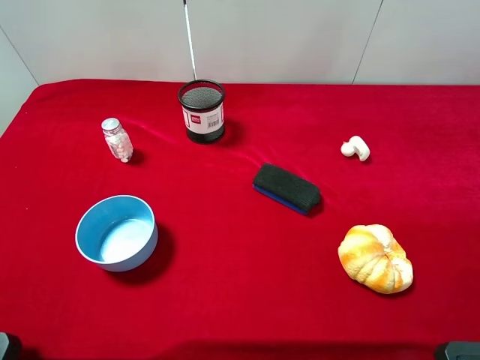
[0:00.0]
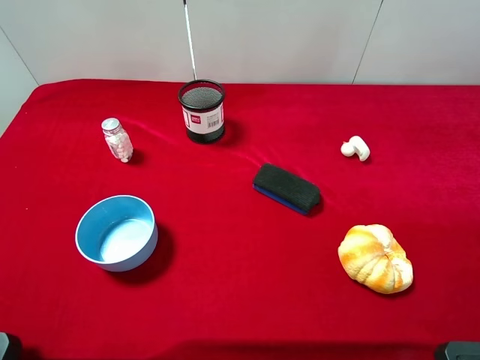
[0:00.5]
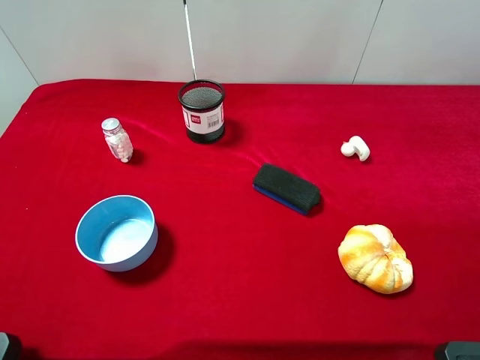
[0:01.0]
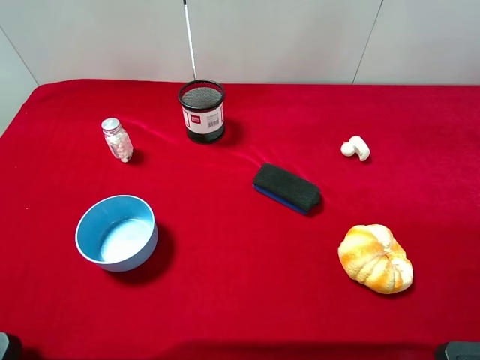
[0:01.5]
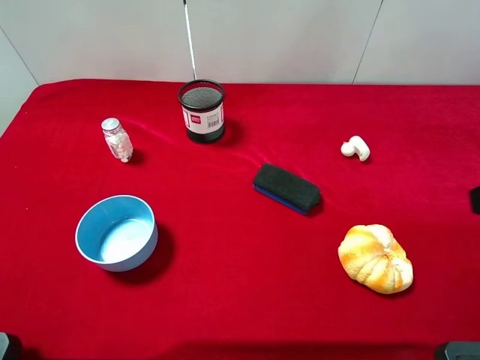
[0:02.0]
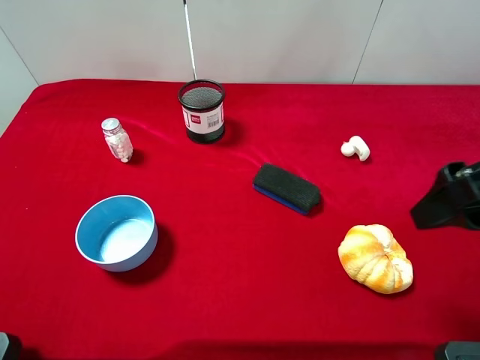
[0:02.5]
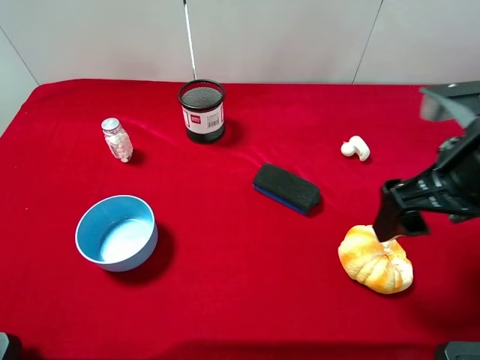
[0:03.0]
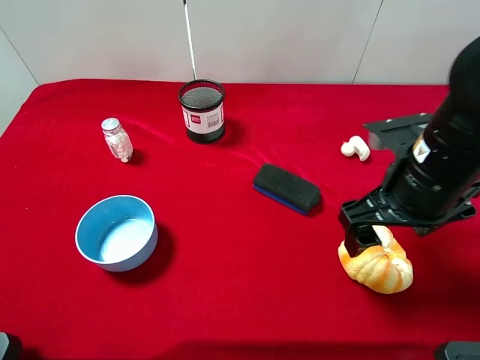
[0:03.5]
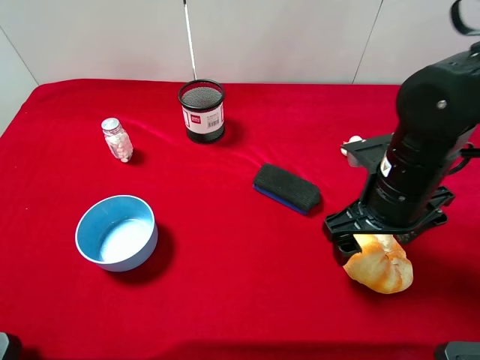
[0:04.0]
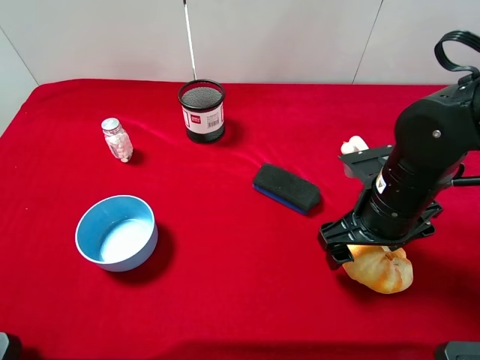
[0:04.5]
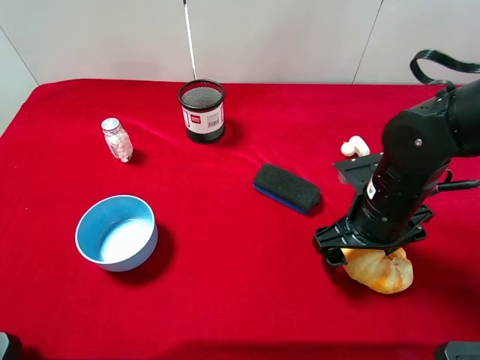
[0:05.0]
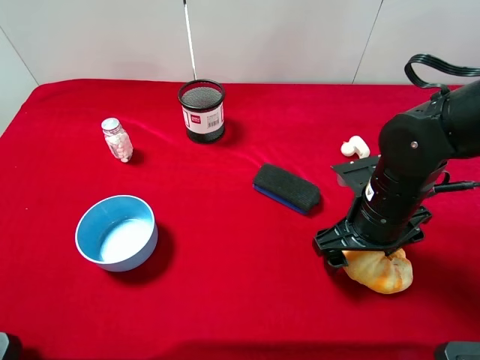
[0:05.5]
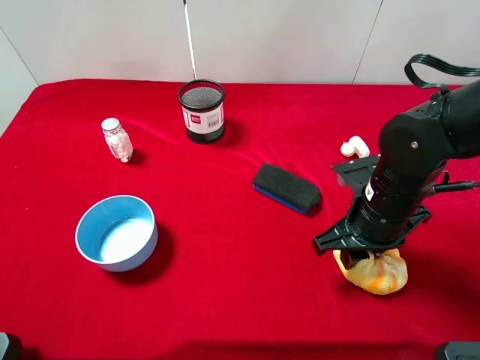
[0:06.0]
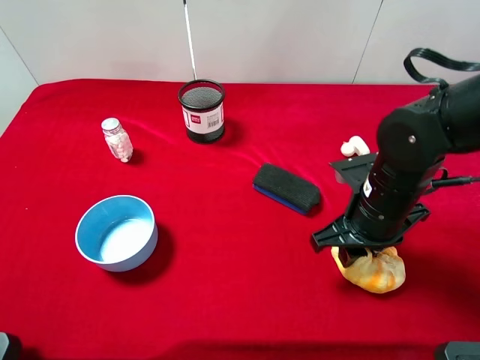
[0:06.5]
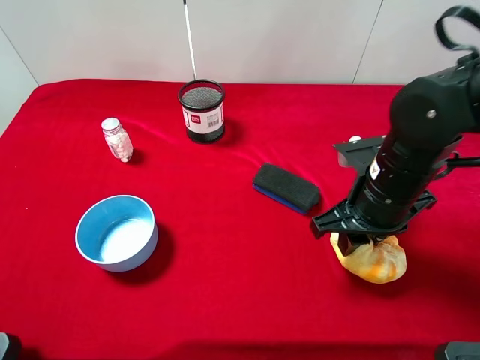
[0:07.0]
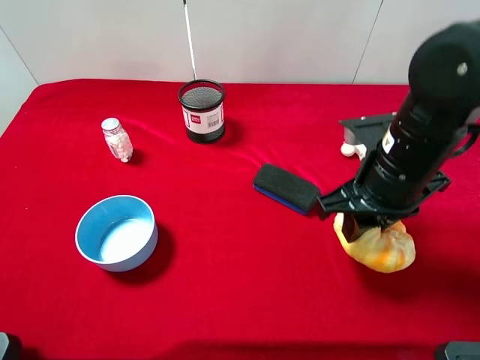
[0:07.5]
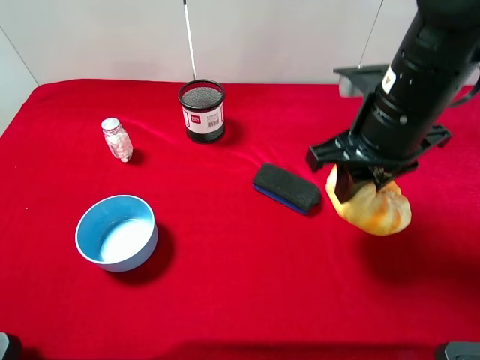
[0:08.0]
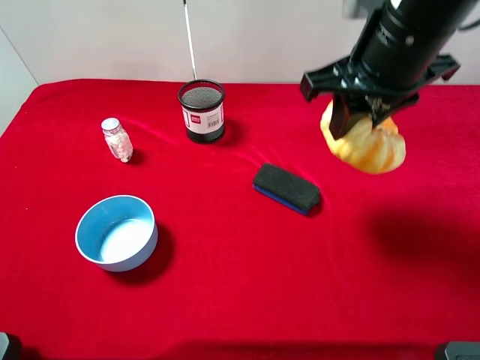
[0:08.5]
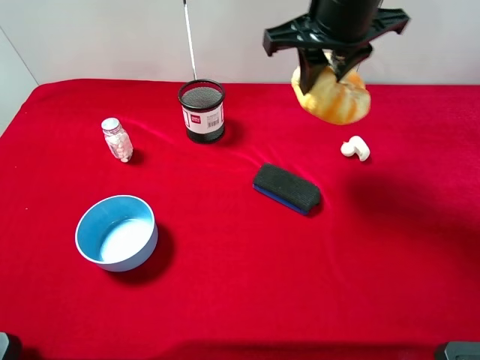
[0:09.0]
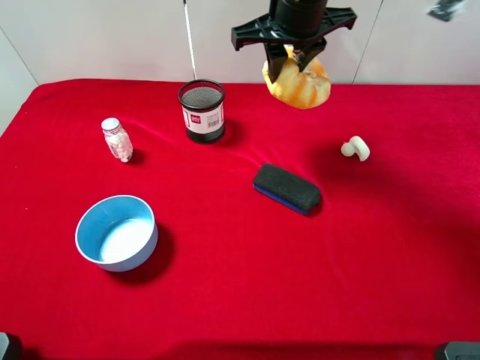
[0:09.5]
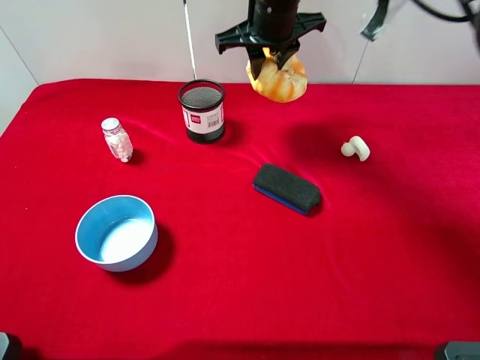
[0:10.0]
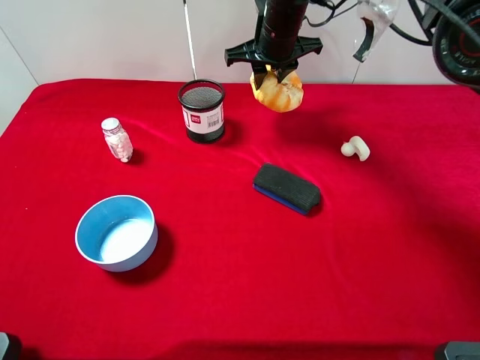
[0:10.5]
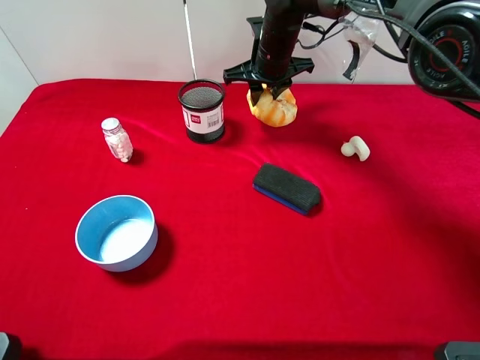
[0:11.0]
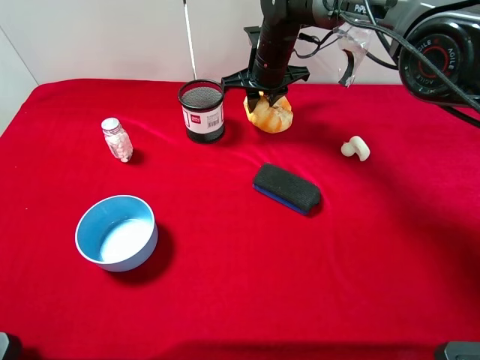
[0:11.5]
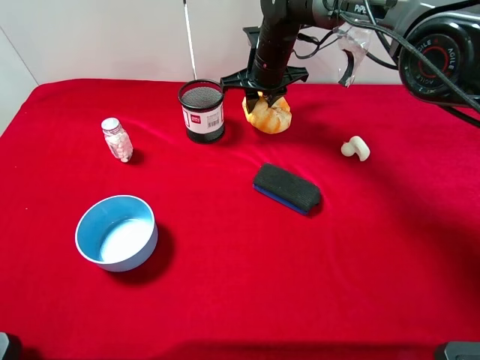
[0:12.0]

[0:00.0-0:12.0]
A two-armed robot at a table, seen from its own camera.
Task of the whole recording: the gripper move the object.
Step, 0.0 to 6.0 s: Grasp the hollow ring bread with the right gripper.
2.0 to 4.0 s: The right gripper goes about 20 cm downward, to the left and forward.
4.0 to 6.0 s: The right gripper closes up.
6.0 to 8.0 s: The right gripper is displaced upward by approximately 10 cm.
8.0 to 10.0 s: The right gripper is displaced forward and to the left by roughly 20 cm.
10.0 to 12.0 s: The right gripper travels downward by approximately 10 cm.

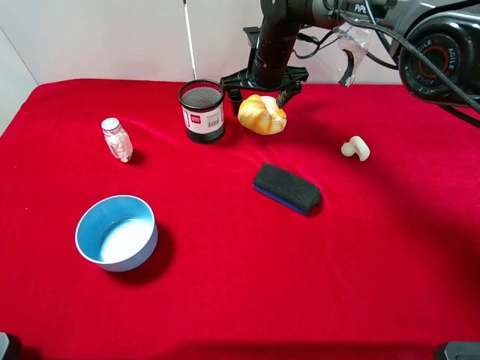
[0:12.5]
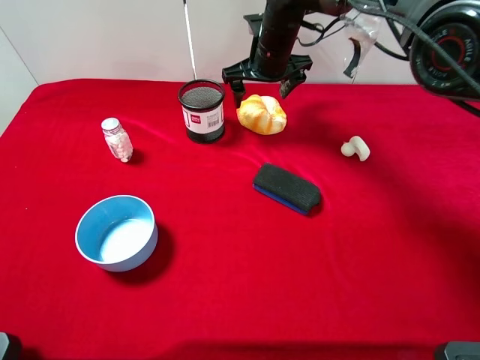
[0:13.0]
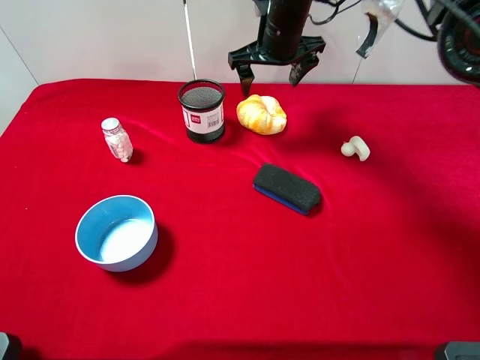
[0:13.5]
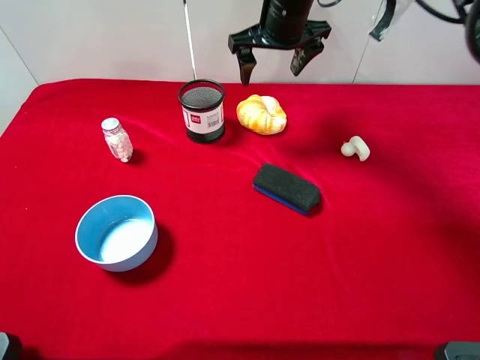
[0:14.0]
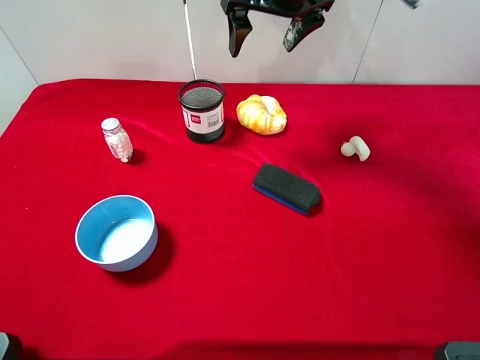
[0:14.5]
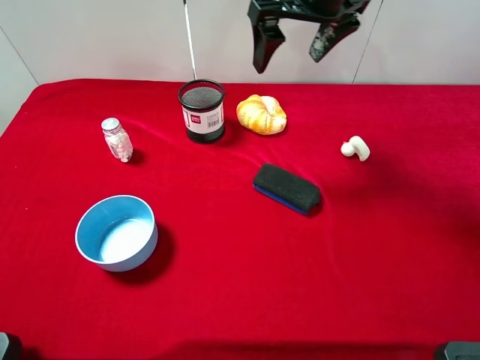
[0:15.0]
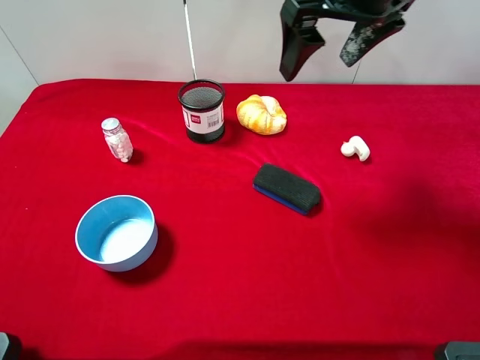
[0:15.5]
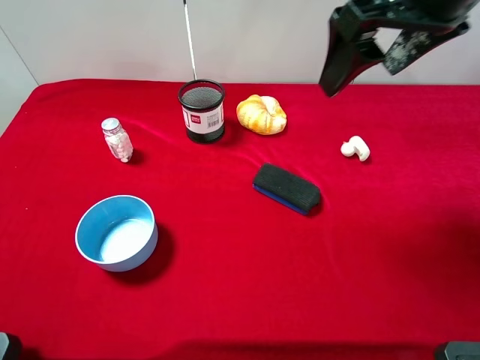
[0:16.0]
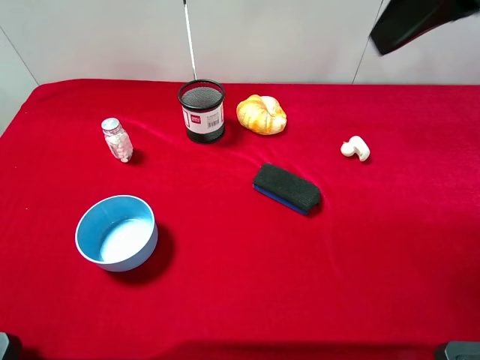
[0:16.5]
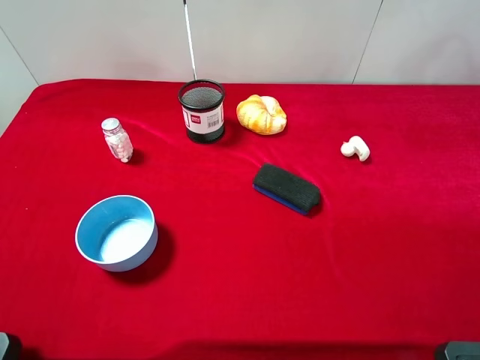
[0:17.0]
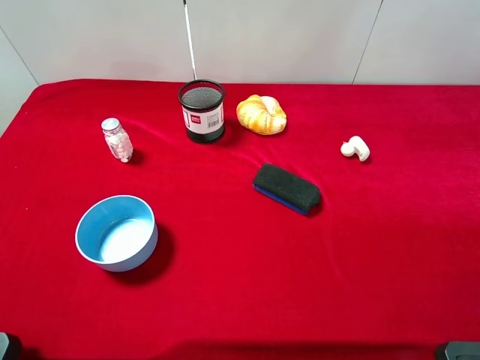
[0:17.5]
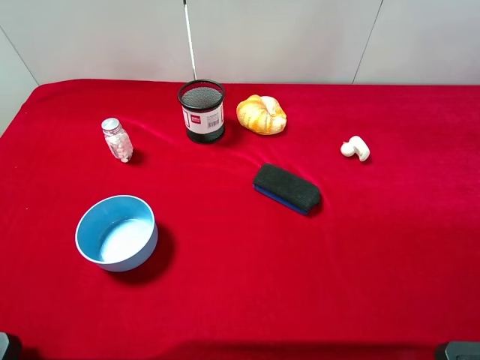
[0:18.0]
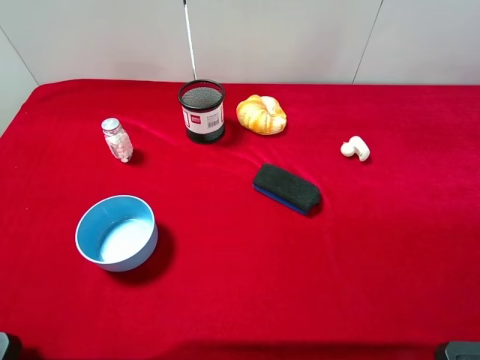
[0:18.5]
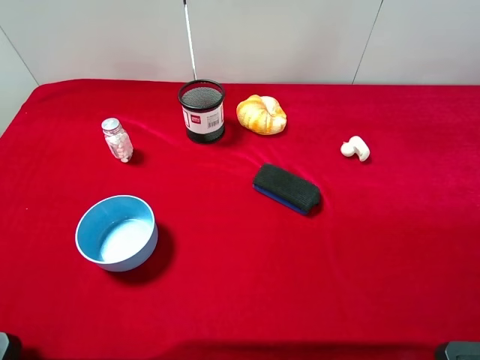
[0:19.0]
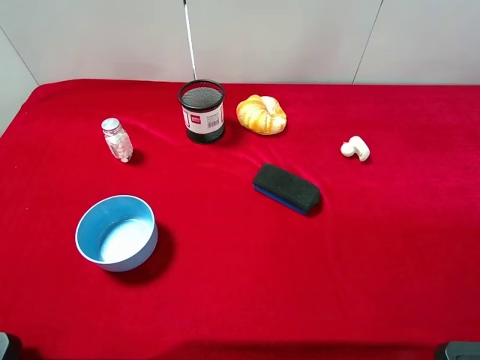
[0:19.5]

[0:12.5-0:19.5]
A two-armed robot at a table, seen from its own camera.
Task of the whole recording: the gripper move the object.
12.5 to 14.5 s: The right gripper heads upward, covering some 15 cm.
14.5 to 16.0 s: The right gripper travels backward and to the right by some 20 cm.
16.0 to 17.5 s: The right gripper goes some 25 cm backward and to the right.

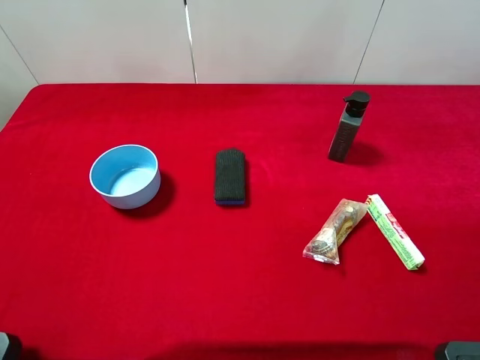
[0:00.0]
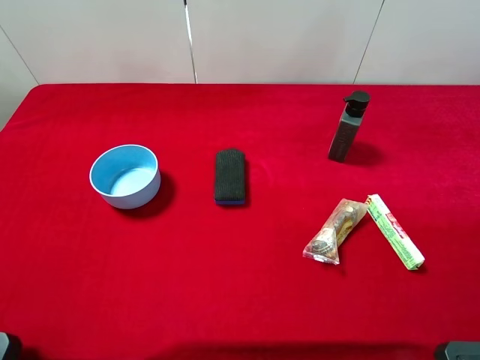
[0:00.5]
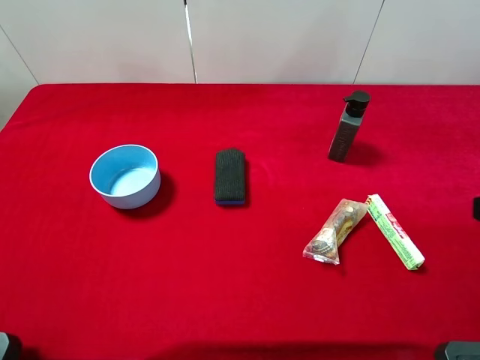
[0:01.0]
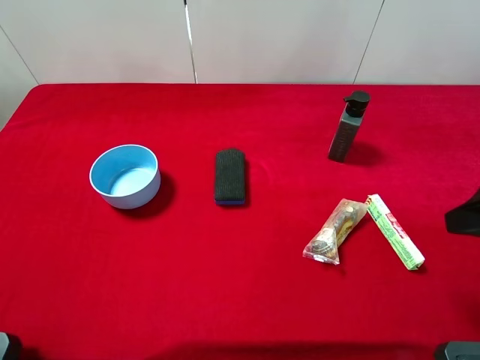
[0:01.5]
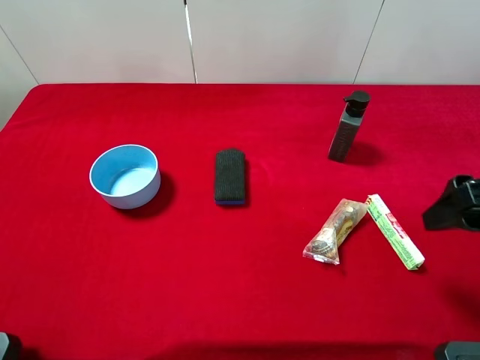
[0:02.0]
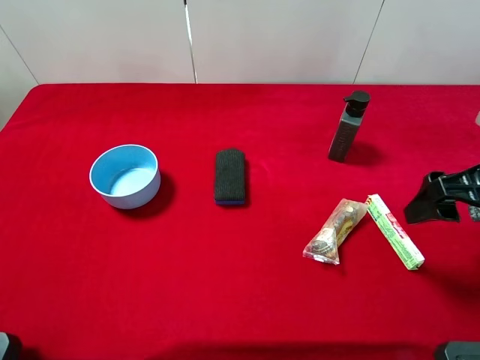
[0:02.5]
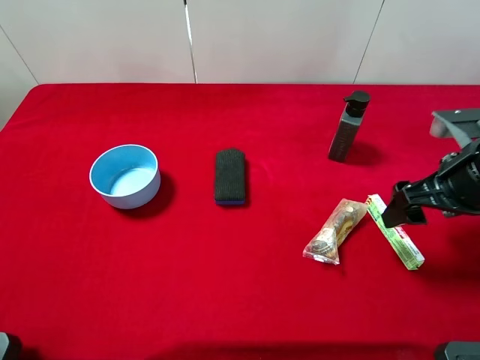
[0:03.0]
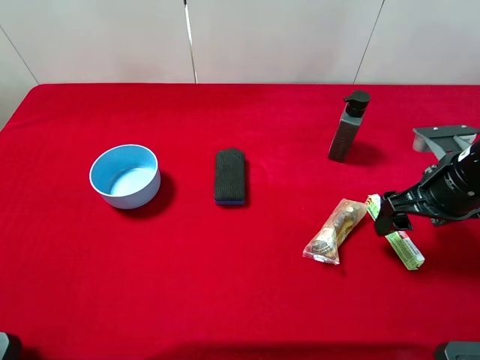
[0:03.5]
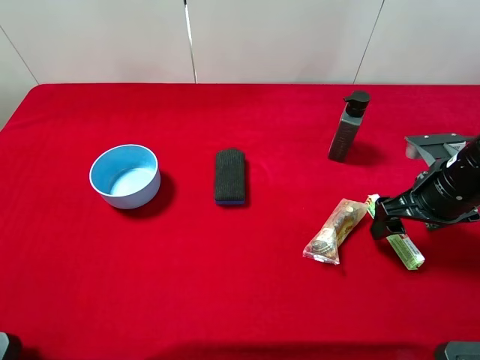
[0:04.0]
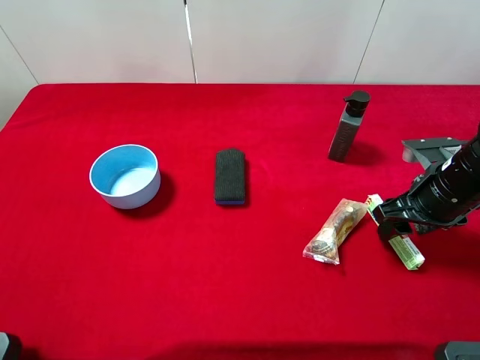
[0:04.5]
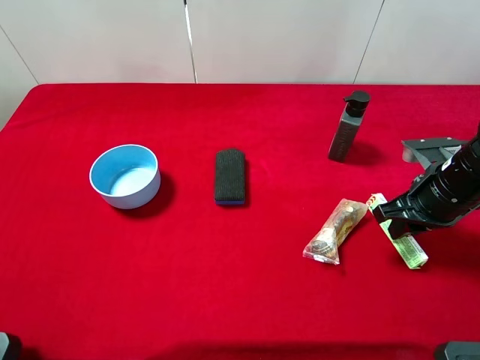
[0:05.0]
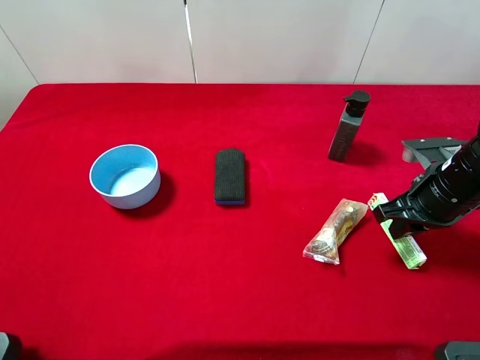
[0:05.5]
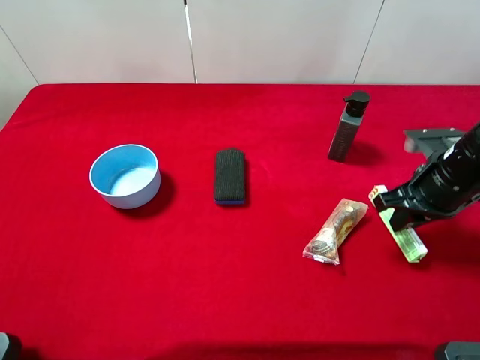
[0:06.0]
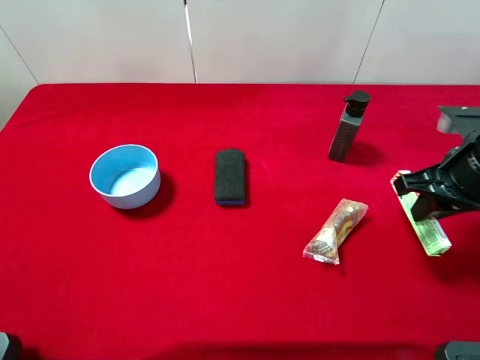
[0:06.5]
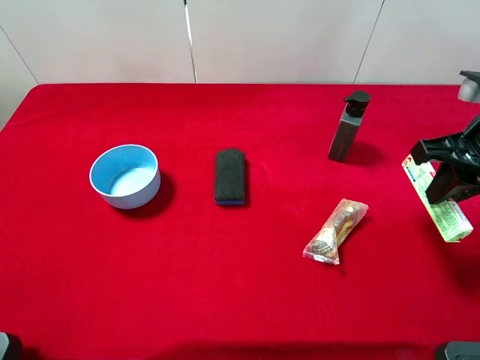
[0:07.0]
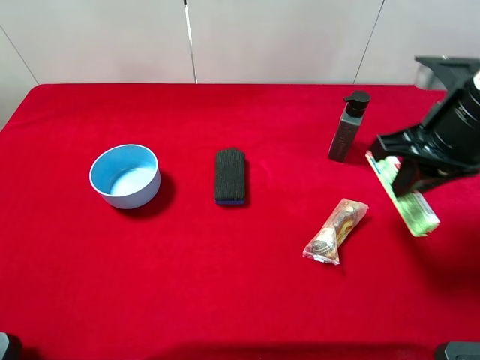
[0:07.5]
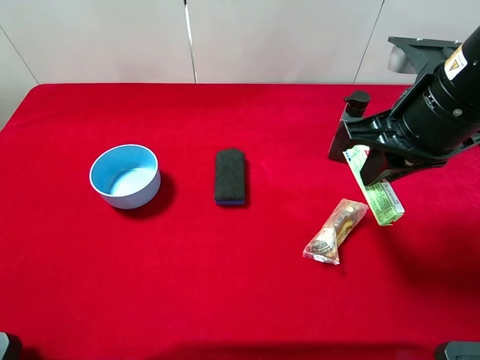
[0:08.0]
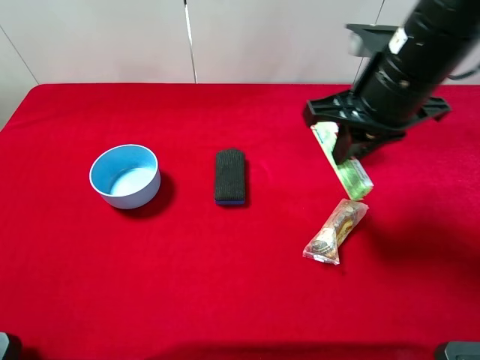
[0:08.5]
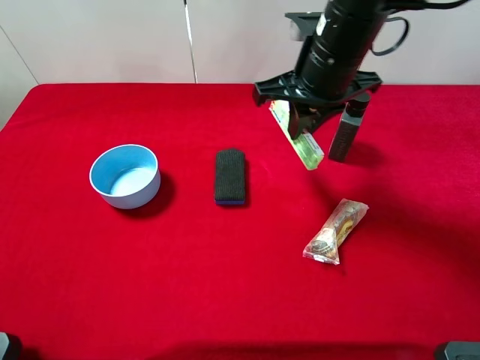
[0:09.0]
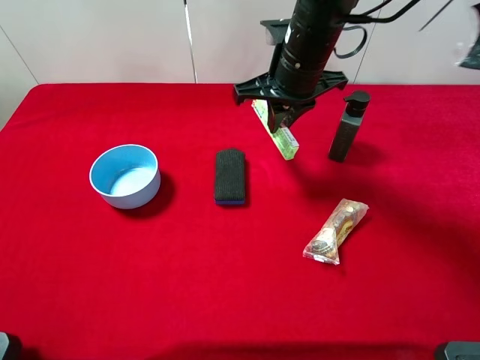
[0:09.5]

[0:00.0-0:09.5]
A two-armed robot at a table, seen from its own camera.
Task of the whole recording: the gripper move the object.
Step, 0.0 to 5.0 s: Grasp the fruit candy with the right gripper.
0.0 to 2.0 s: The right gripper travels forward by about 15 cm.
2.0 to 4.0 s: The right gripper travels downward and forward by some 15 cm.
4.0 to 5.5 s: The right gripper closes.
5.5 to 7.5 s: The right gripper travels upward and to the left by approximately 15 cm.
7.5 to 9.5 s: The right gripper travels to the left and forward by approximately 20 cm.
